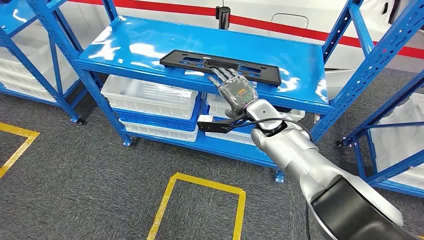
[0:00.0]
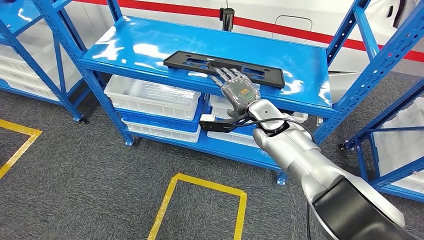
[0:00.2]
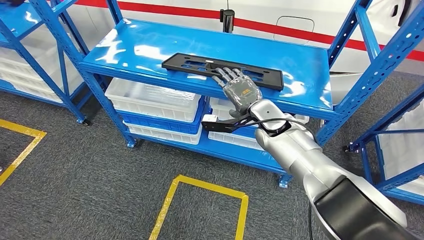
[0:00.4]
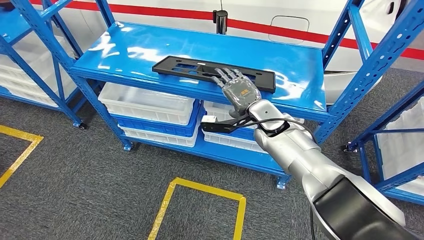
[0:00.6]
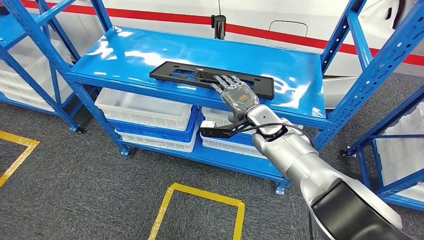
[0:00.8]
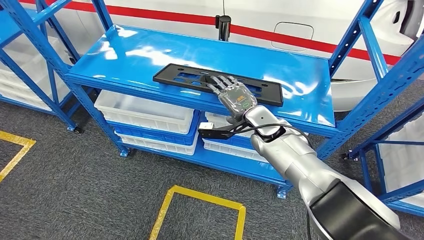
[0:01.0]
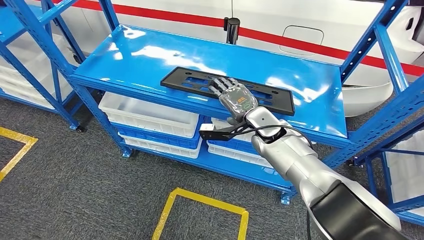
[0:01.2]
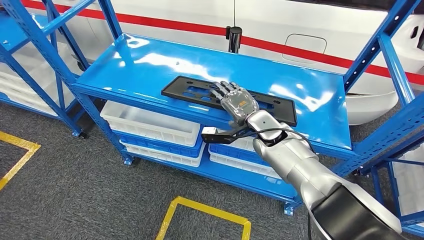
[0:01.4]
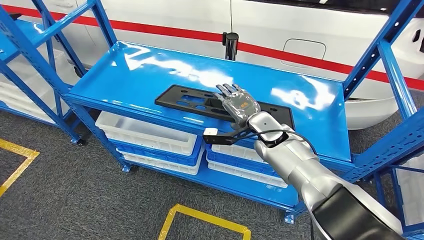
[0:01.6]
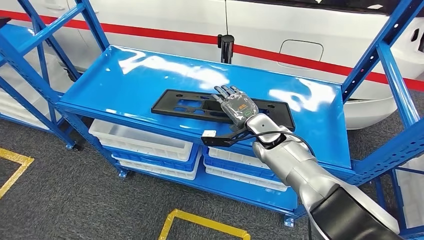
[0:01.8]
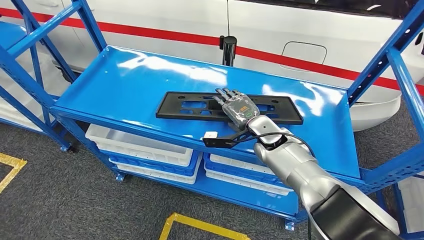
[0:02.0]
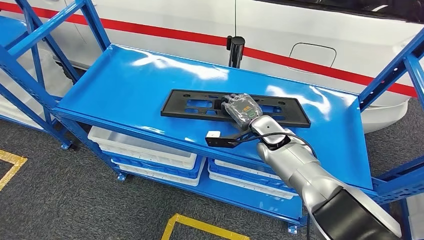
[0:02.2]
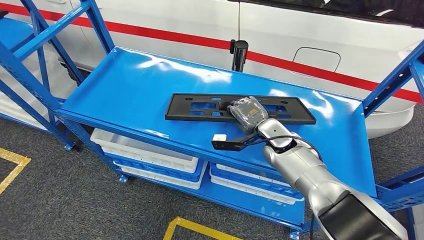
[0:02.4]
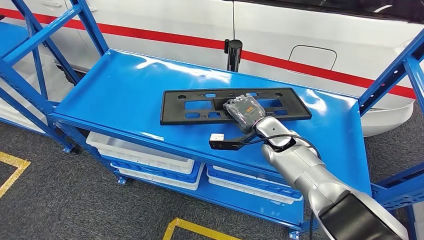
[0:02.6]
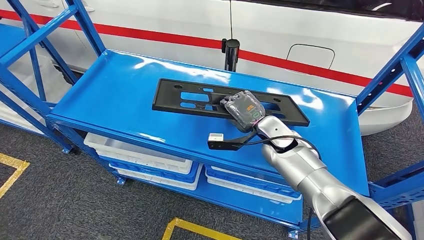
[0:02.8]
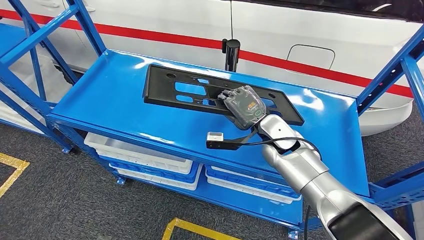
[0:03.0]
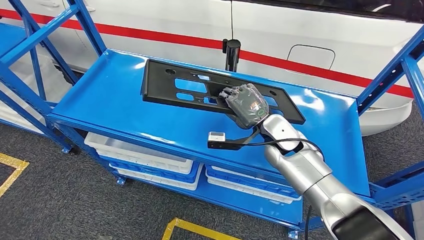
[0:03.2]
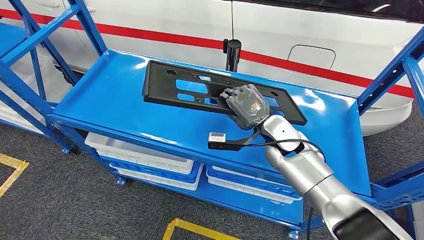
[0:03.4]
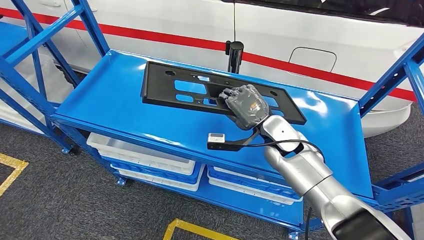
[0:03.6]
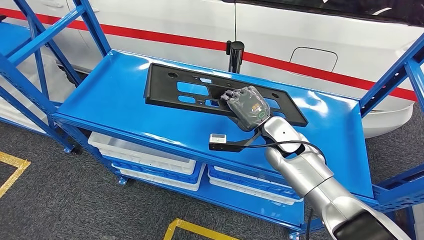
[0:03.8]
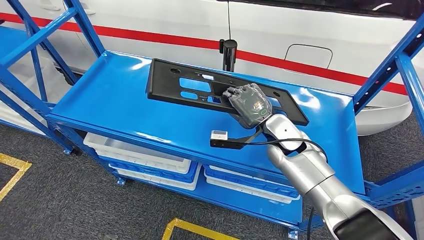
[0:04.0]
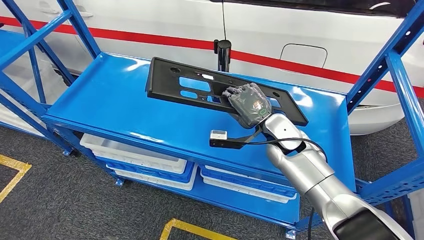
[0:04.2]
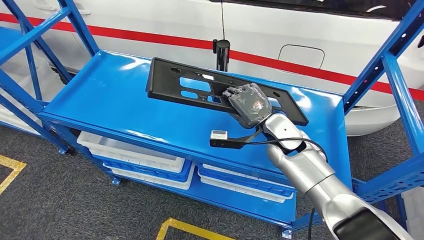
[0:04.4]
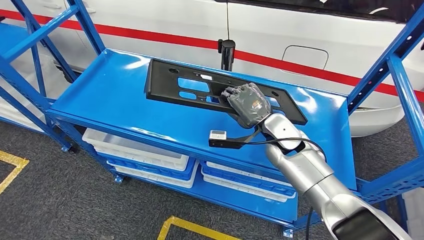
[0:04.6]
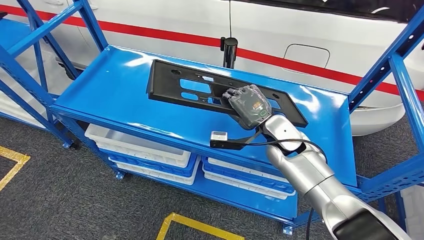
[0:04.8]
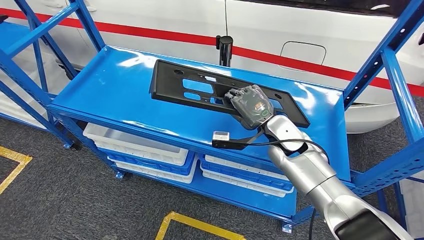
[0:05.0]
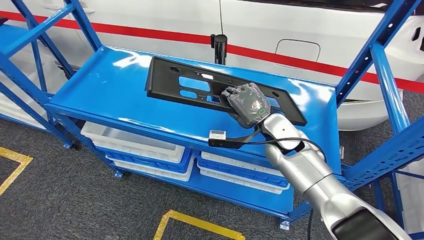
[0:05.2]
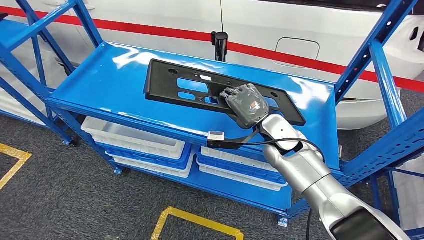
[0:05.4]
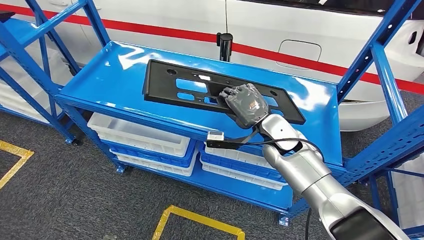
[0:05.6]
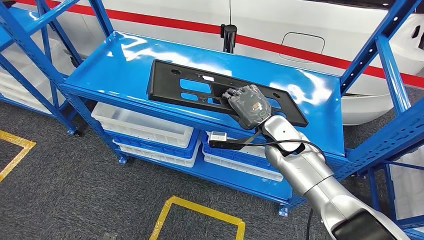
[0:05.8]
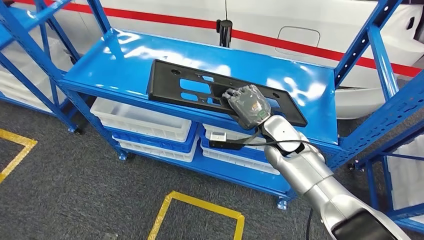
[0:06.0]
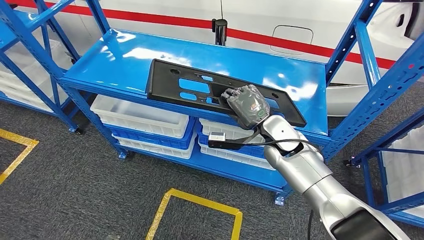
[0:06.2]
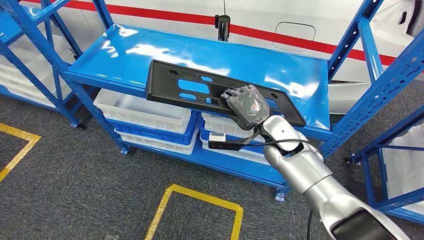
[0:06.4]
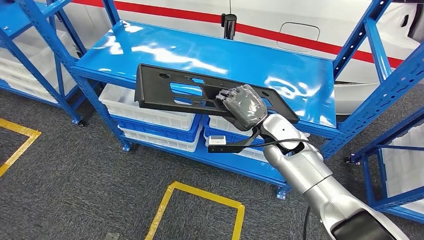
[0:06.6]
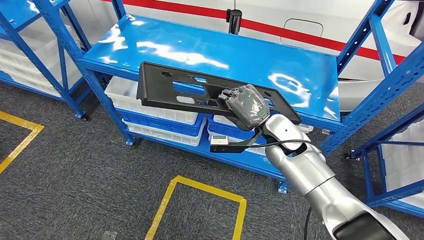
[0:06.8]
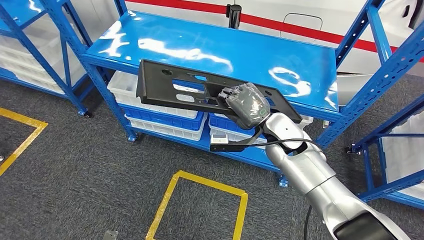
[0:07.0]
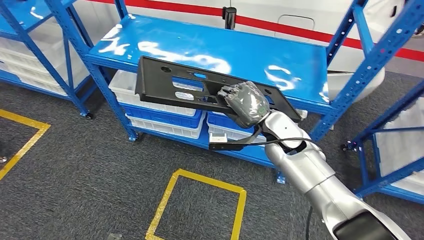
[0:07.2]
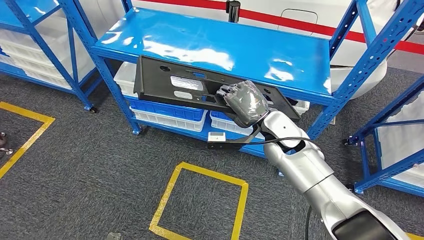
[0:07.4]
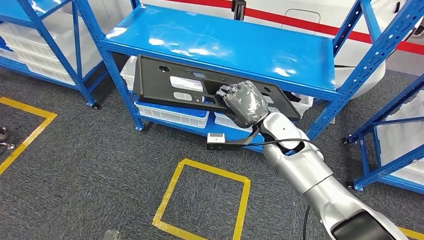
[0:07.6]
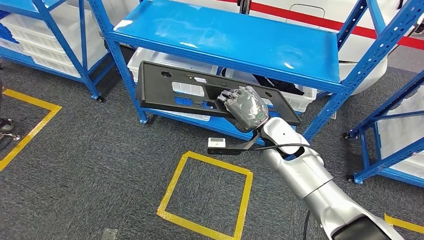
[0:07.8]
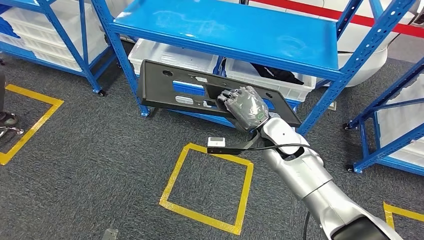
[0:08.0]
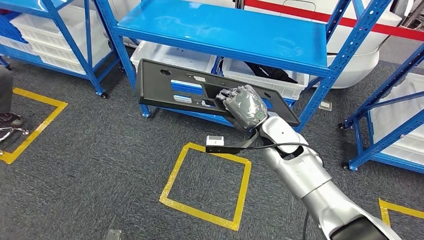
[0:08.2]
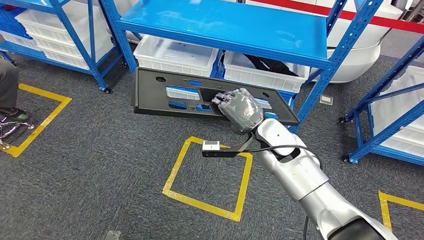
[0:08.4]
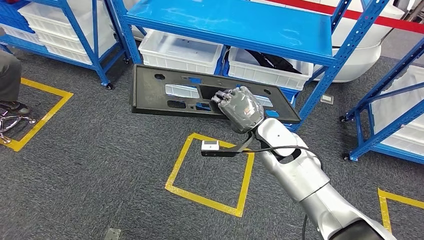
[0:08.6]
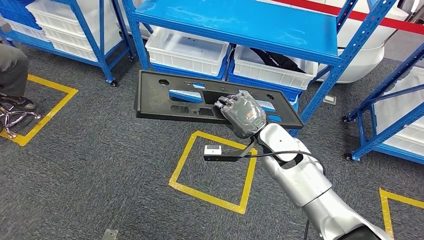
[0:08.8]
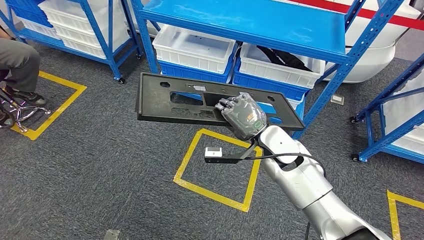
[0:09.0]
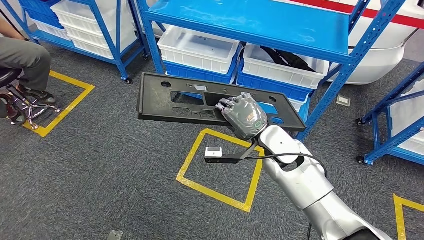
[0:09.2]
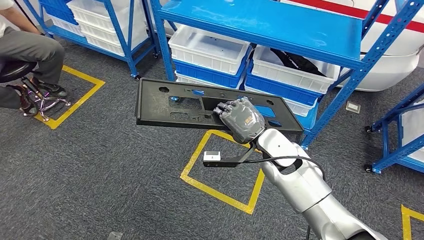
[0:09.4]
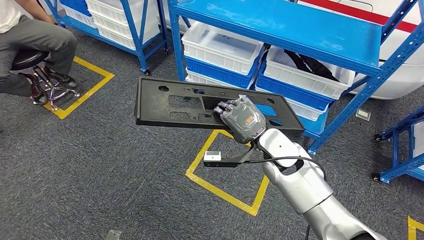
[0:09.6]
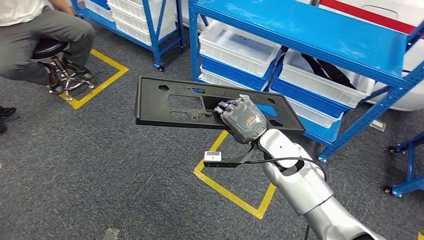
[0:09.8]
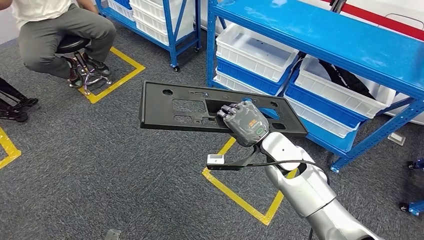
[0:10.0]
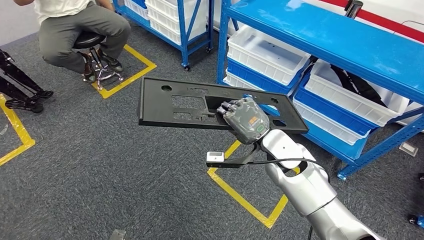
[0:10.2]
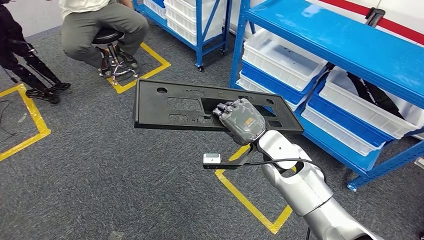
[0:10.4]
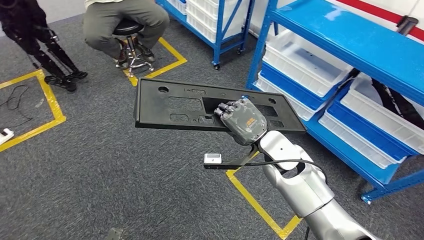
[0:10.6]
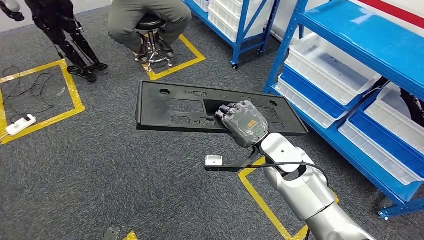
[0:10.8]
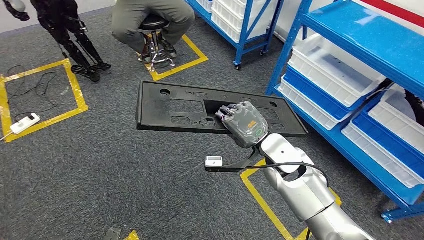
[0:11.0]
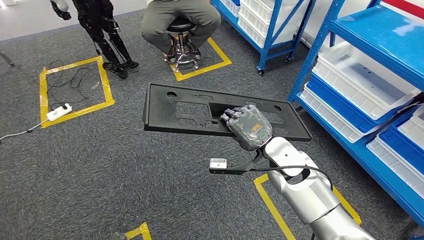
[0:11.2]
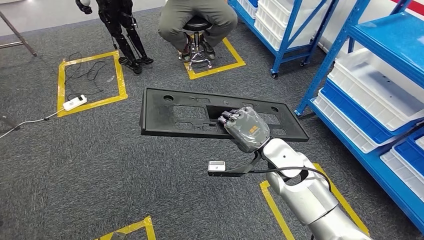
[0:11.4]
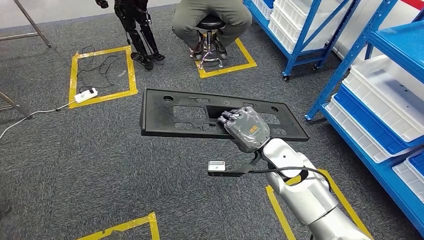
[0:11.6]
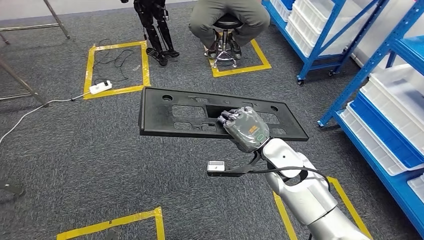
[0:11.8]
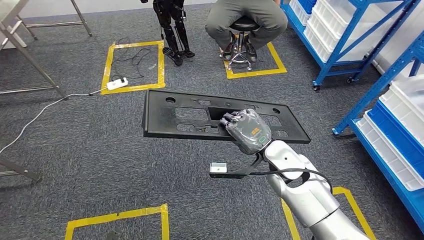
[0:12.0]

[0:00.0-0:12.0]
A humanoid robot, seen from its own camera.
Step, 0:00.0 to 0:04.0: Pick up the large material from the shelf.

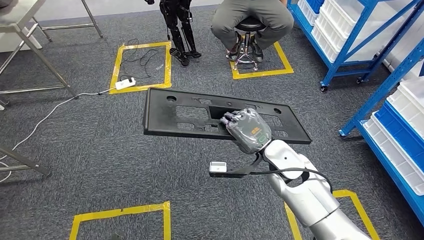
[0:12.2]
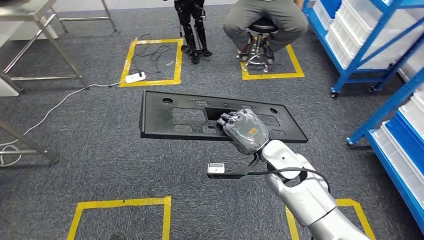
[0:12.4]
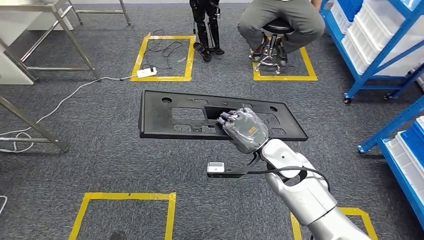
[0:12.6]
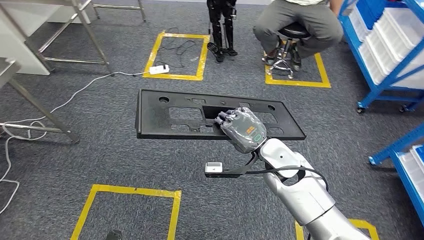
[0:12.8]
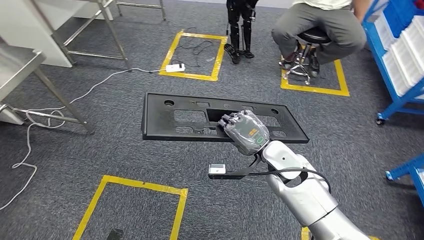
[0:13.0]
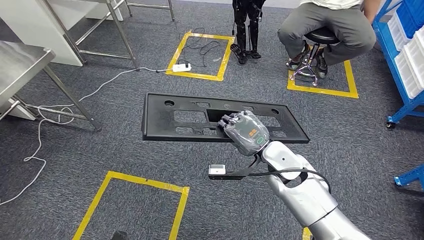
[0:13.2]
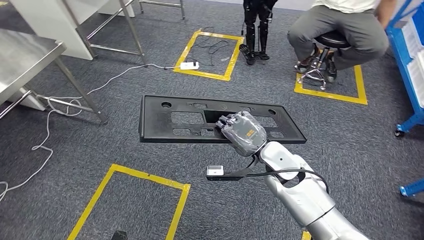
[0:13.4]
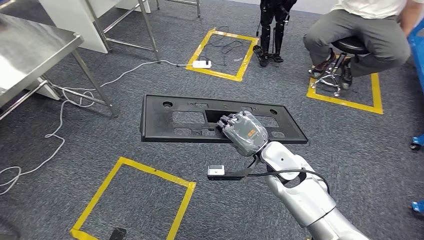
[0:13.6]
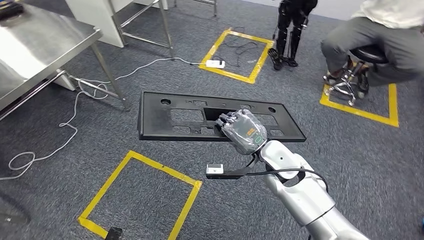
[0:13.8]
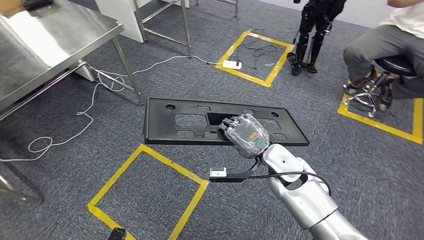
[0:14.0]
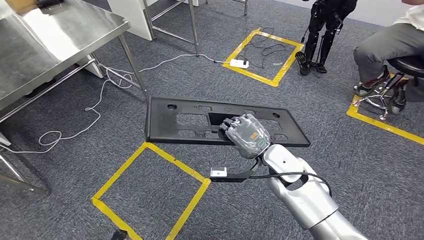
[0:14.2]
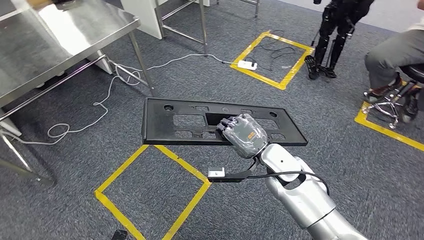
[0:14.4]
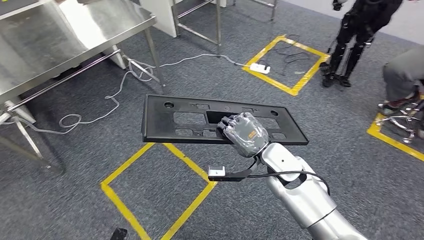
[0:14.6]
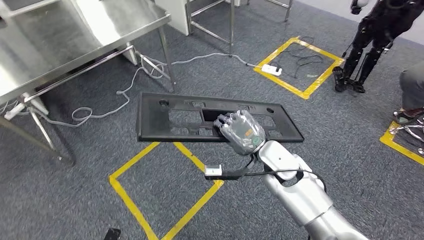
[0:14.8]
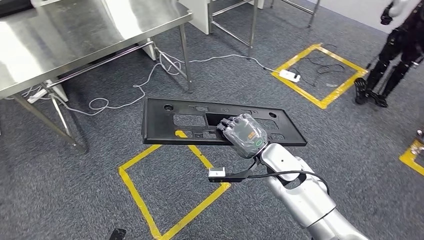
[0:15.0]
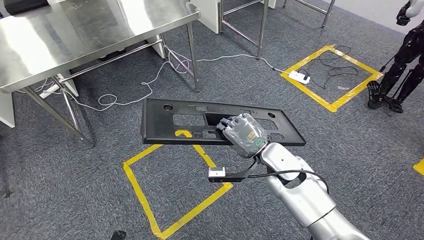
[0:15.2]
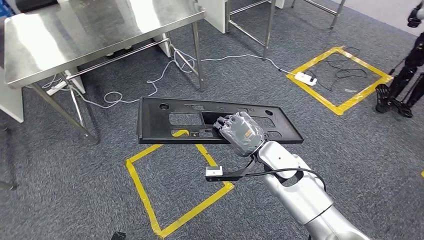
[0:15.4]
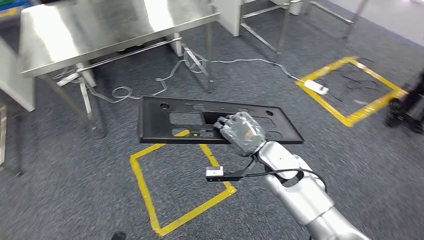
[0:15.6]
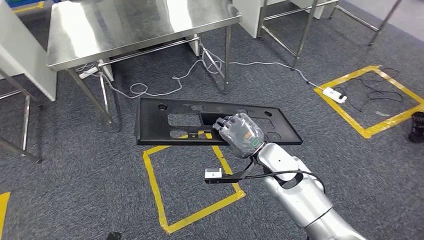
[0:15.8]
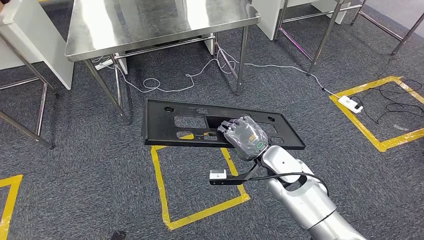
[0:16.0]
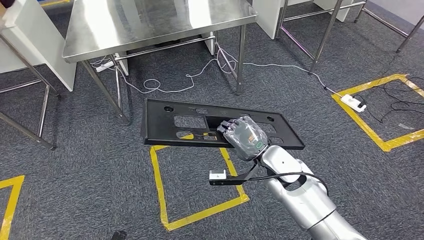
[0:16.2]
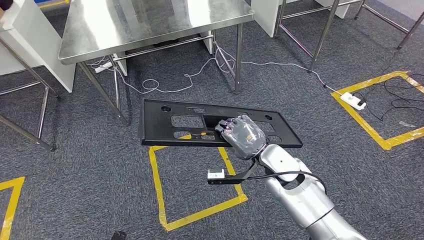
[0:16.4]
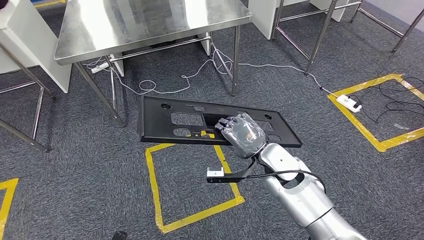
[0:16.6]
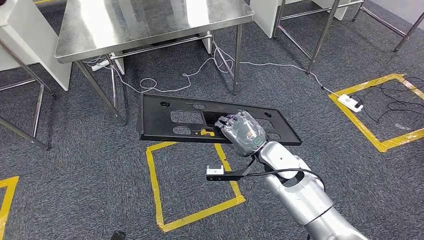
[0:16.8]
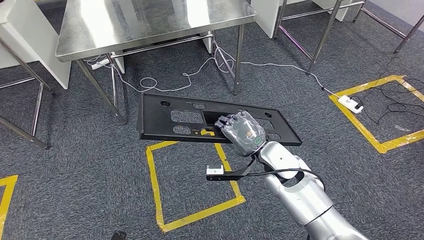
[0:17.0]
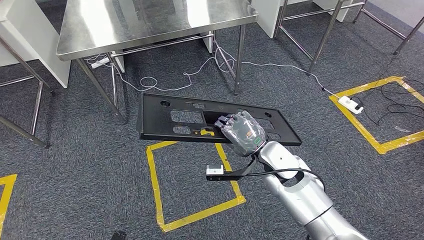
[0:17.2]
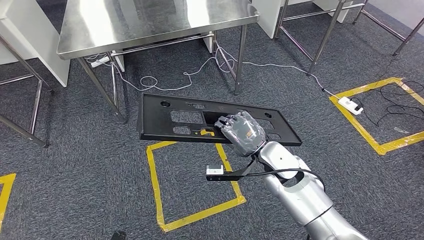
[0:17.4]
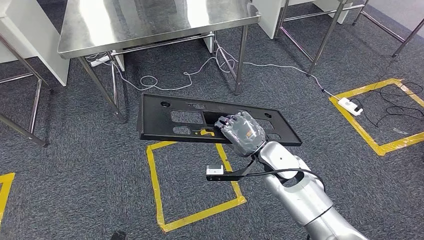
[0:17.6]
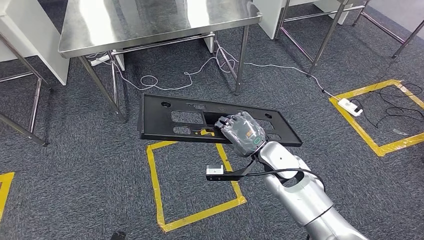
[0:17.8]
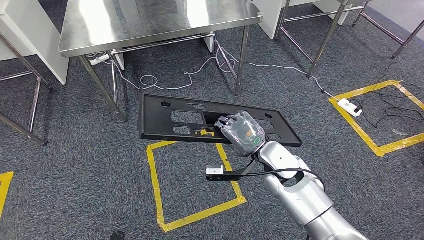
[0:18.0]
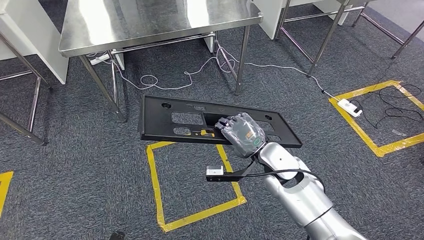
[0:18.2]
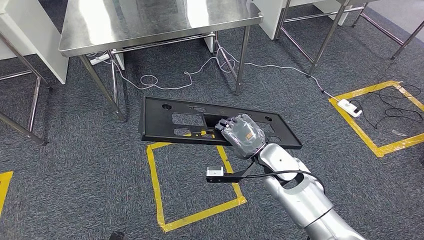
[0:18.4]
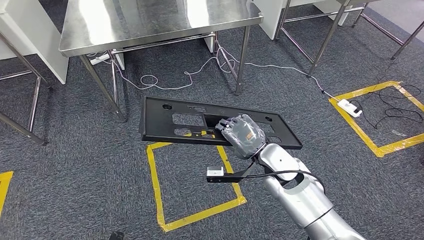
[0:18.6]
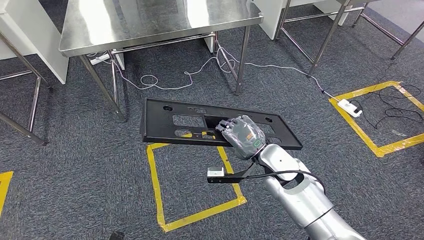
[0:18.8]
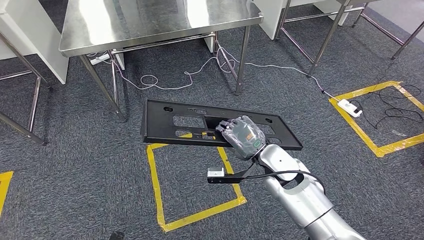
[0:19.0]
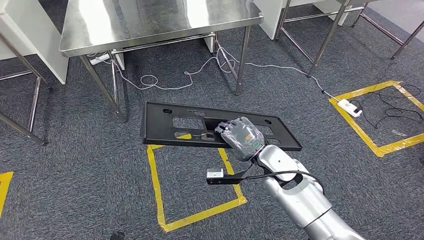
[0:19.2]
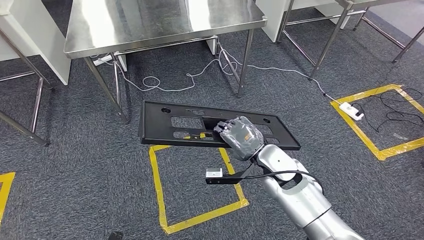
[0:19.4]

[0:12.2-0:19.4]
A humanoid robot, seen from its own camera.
0:16.6 to 0:19.4: Both hands stay put.
